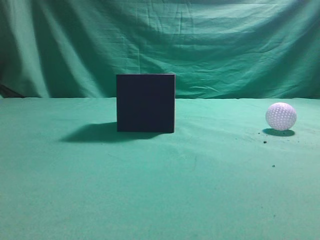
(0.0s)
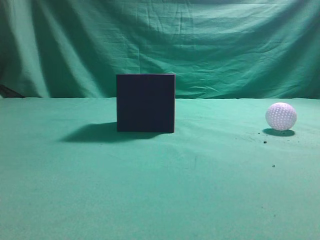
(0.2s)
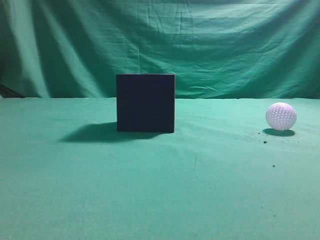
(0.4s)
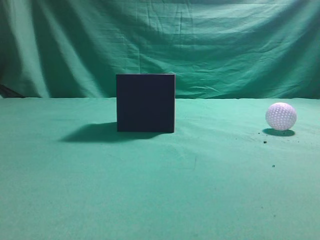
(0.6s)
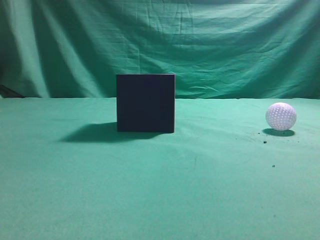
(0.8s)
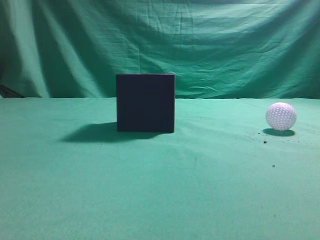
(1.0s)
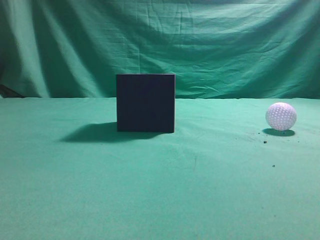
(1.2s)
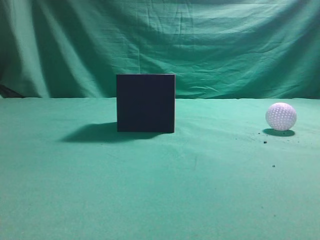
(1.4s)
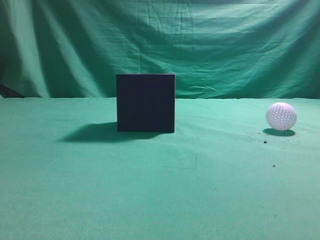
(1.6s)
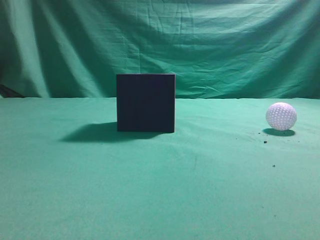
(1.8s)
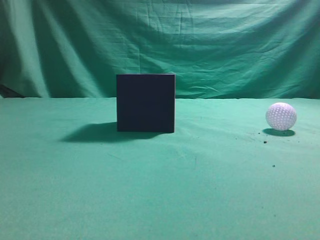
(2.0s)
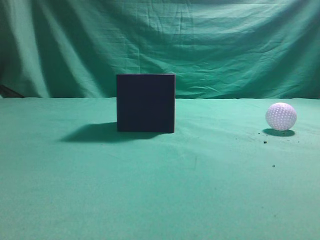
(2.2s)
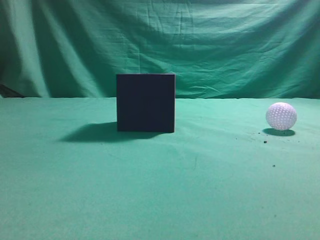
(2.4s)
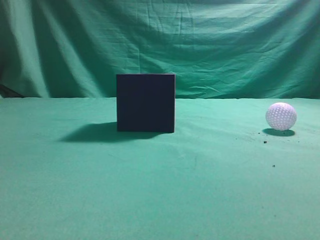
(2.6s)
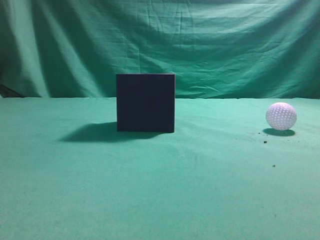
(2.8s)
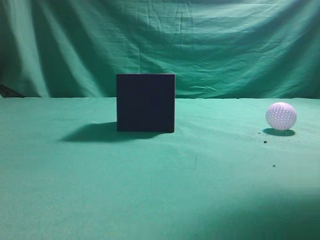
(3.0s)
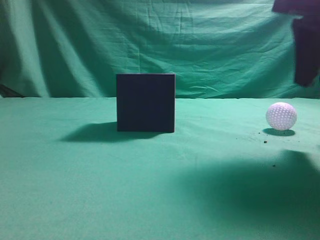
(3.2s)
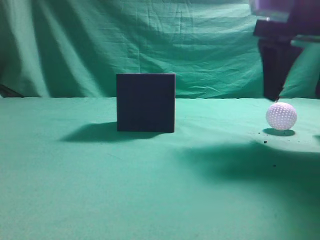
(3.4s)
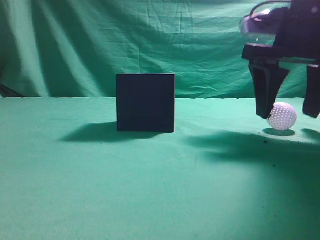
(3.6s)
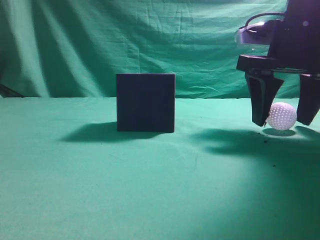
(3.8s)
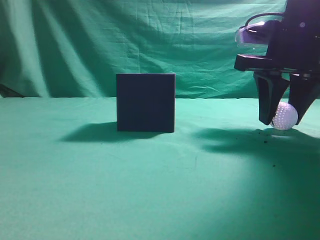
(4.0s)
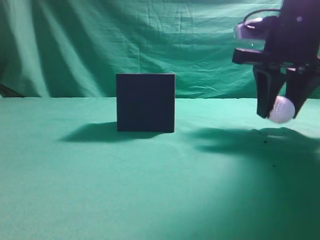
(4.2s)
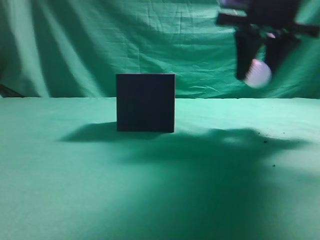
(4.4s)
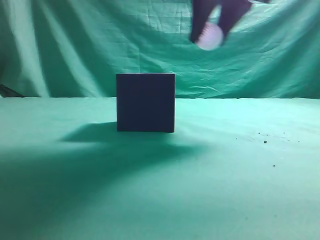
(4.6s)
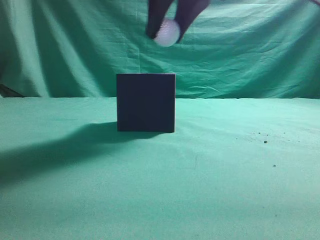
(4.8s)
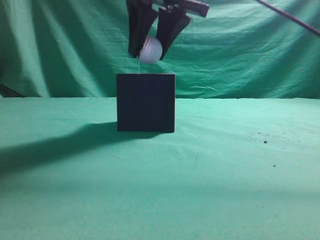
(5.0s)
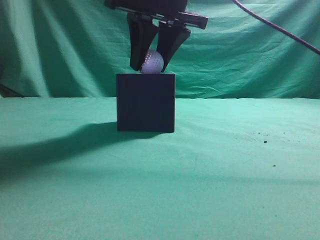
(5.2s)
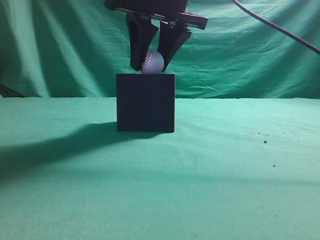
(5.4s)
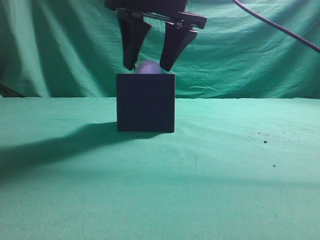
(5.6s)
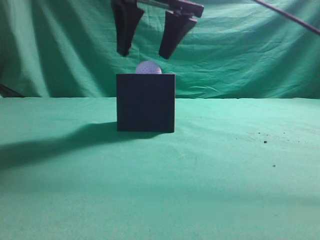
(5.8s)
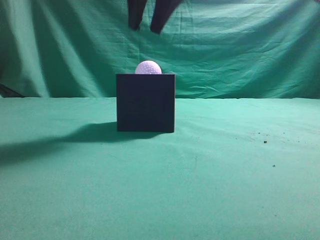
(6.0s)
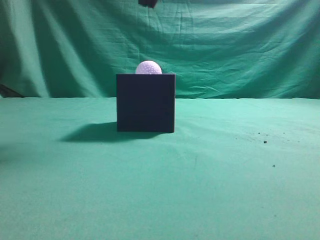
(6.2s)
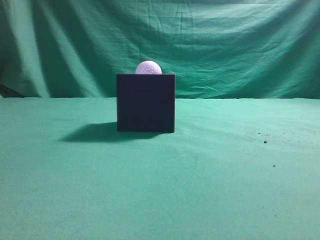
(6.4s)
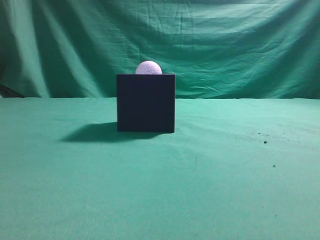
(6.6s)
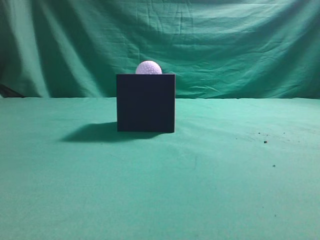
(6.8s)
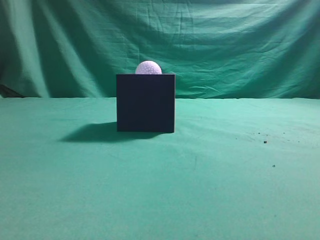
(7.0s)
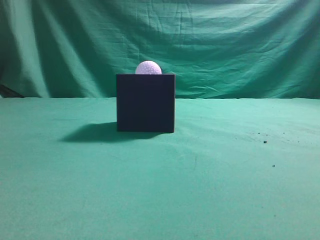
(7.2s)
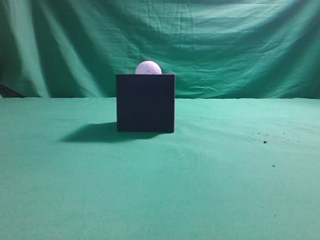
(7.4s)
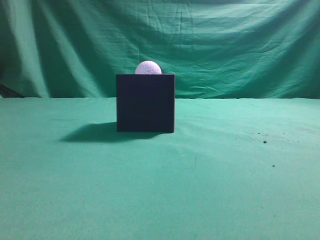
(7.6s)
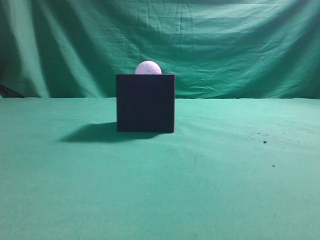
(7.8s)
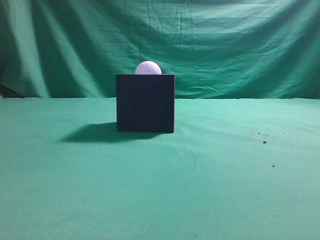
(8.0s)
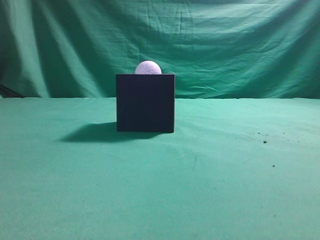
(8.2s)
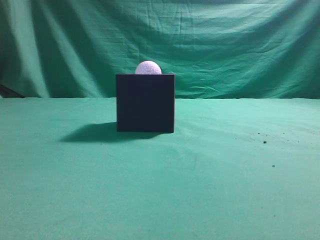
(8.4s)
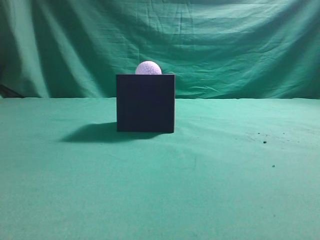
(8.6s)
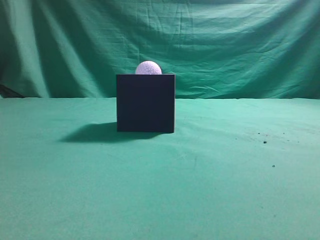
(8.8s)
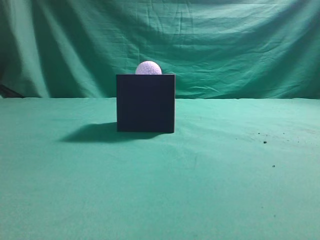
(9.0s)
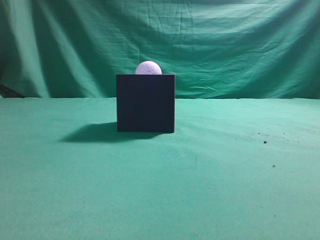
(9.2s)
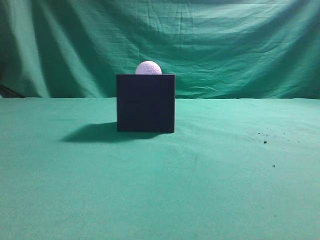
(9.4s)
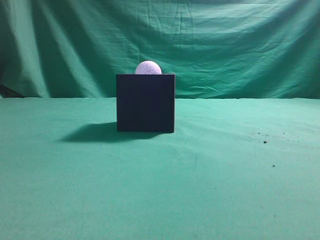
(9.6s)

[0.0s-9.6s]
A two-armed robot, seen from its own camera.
Task of the whole recording: Pick up the ball and place it in the circular groove above the cube.
Step, 0.0s to 4.2s: Grasp the sphere on the table.
Step, 4.4s to 5.8s: Place the sphere into the sphere-shaped recess.
1.6s to 3.2s: The right gripper heads forward, covering approximately 20 cm, and opens up.
3.2s to 4.8s: The right gripper moves to the left, forward and upward, approximately 15 cm, and opens, then closes again.
4.8s to 6.4s: The right gripper travels upward by some 10 cm, and closes.
